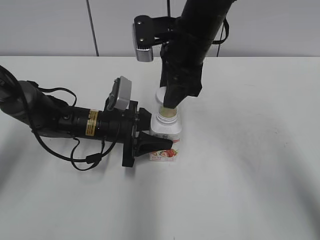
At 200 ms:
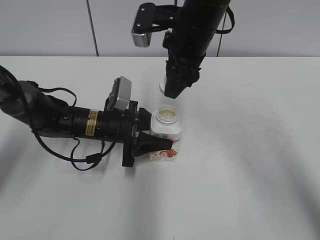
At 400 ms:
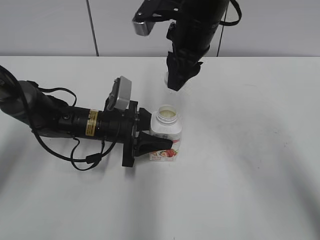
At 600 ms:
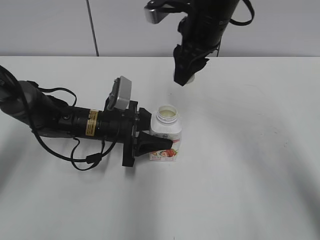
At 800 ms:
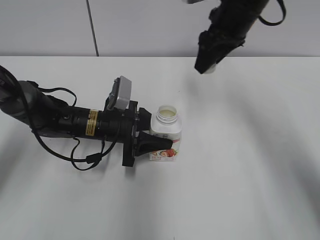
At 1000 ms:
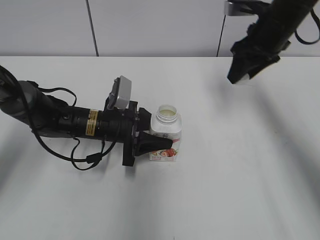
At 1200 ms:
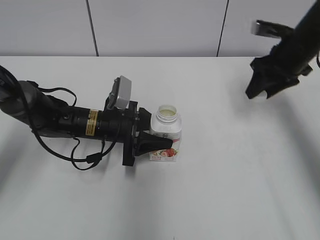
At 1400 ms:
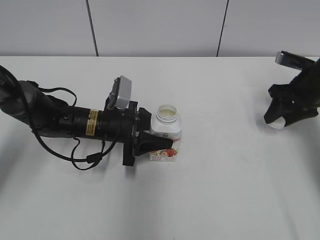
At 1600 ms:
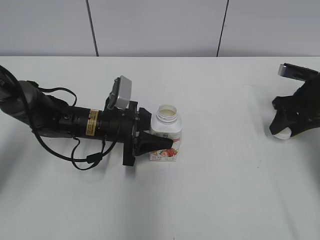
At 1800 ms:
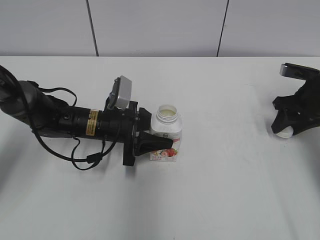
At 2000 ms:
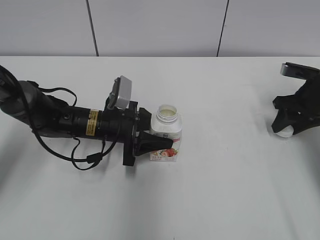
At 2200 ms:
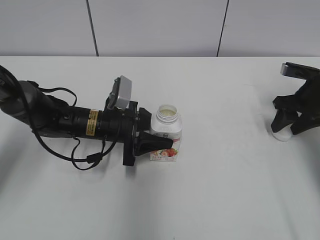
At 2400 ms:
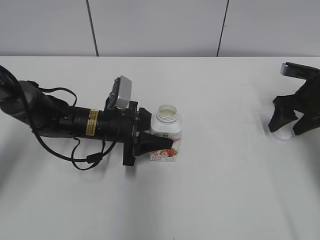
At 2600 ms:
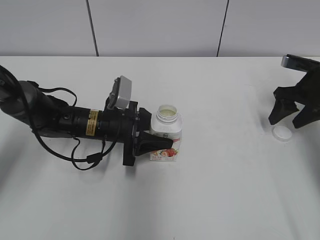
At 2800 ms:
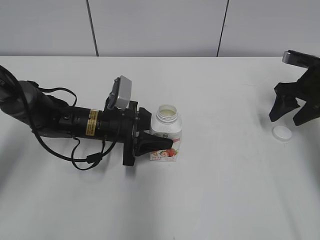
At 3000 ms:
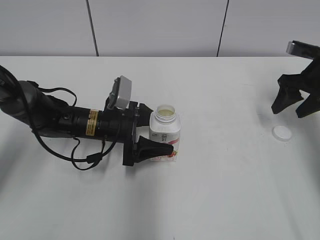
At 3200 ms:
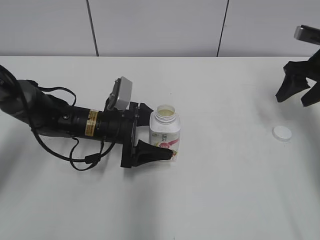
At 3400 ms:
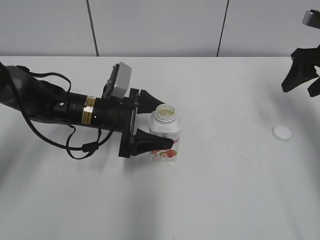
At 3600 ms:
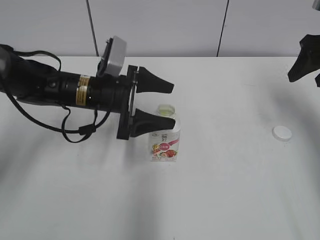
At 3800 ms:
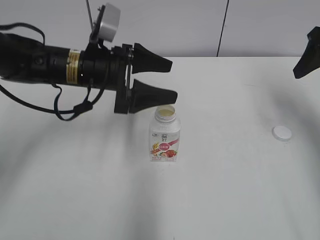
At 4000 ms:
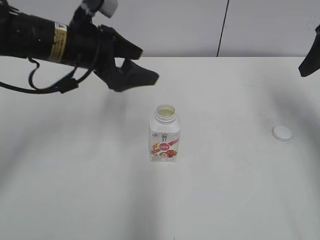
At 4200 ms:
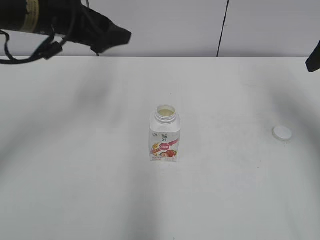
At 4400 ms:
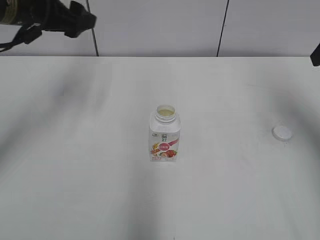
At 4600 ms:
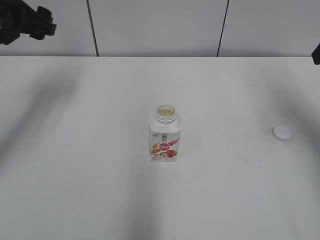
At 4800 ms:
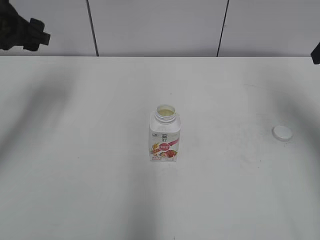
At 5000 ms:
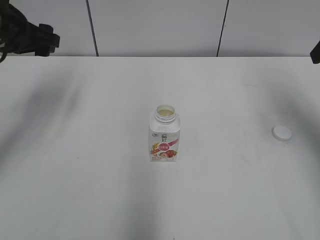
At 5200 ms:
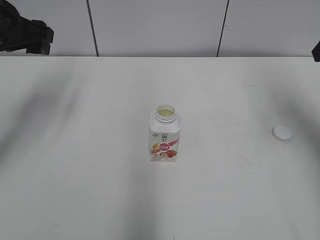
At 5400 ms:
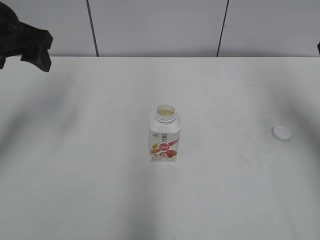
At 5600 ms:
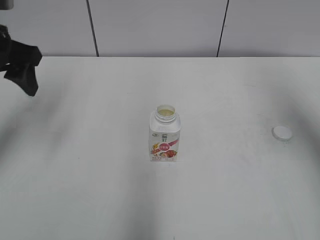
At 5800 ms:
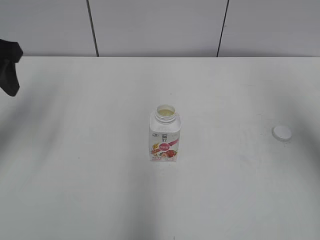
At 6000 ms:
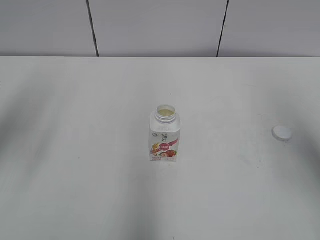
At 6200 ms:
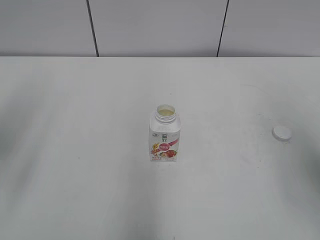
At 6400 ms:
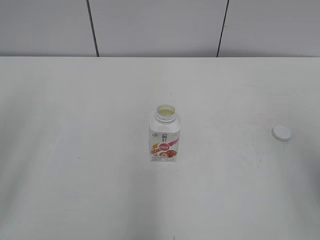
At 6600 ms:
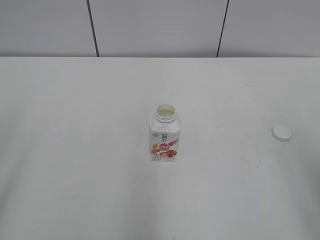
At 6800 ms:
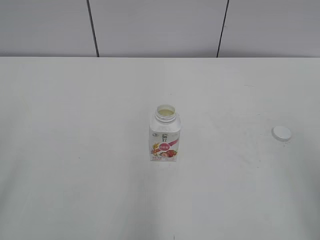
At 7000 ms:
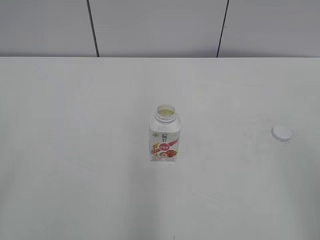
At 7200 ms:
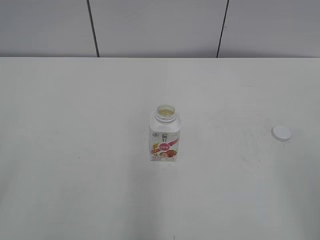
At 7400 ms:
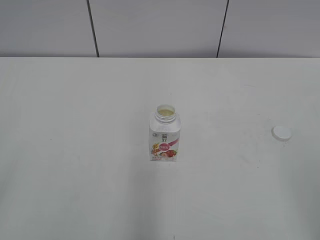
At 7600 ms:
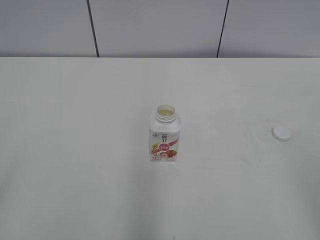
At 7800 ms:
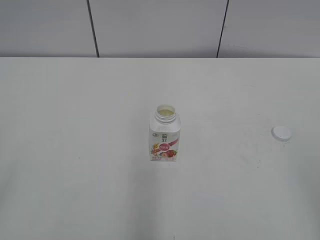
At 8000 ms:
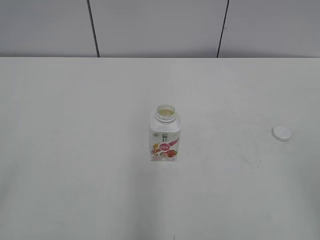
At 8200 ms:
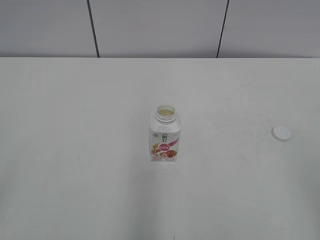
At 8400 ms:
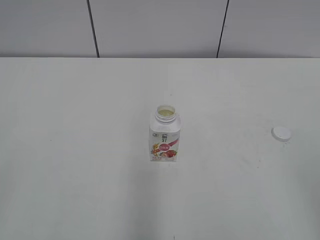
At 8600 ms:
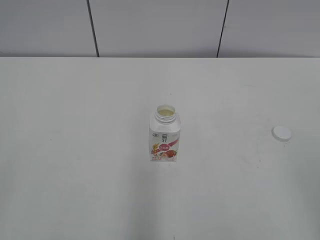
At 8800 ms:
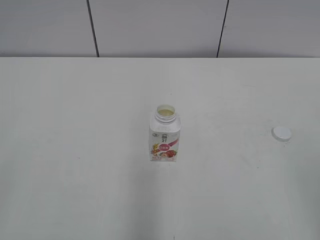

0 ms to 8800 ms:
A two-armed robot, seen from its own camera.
Step, 0 ms to 2400 ms: Place the bottle cap on the right.
0 ms to 1400 ms: The right gripper travels to the right by about 25 cm.
1400 ms to 3000 ms: The left gripper opens its fingers, while the right gripper opens its fingers.
3000 ms to 4400 ms: The left gripper heads upward, covering some 25 cm, and opens its fingers, while the right gripper moves upward and backward, about 20 cm.
4400 ms to 5800 ms: The left gripper is displaced backward and to the left by about 10 cm.
5800 ms to 7400 ms: Both grippers travel together backward, about 30 cm.
